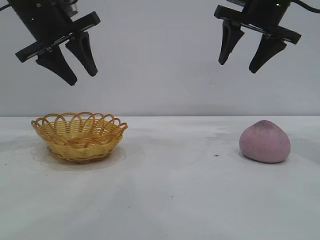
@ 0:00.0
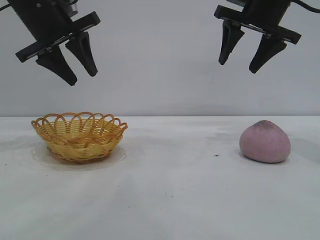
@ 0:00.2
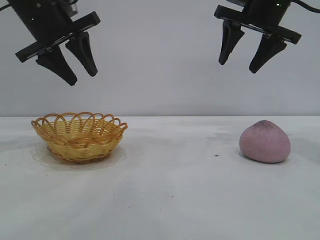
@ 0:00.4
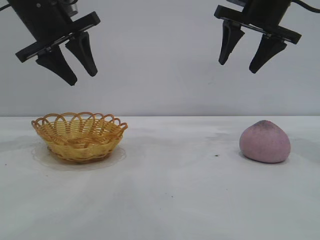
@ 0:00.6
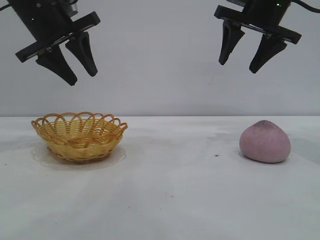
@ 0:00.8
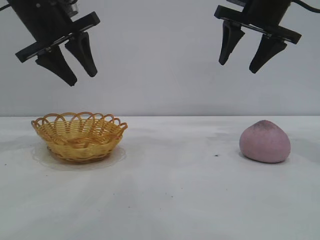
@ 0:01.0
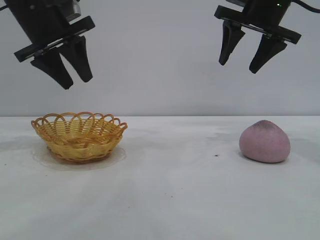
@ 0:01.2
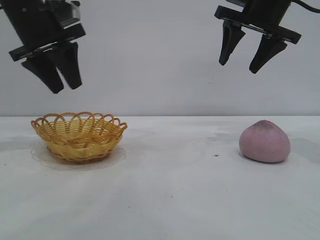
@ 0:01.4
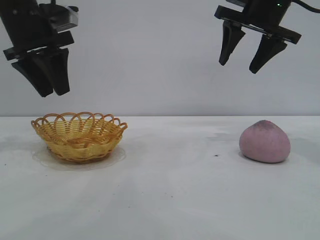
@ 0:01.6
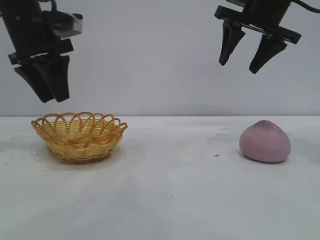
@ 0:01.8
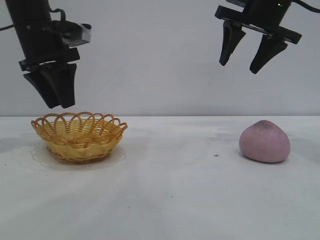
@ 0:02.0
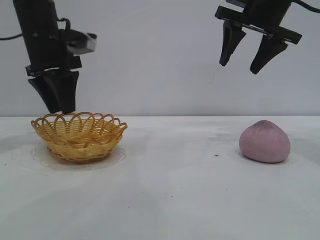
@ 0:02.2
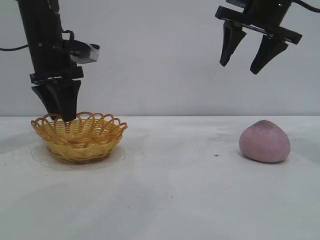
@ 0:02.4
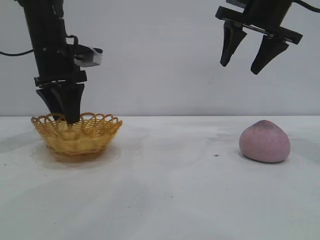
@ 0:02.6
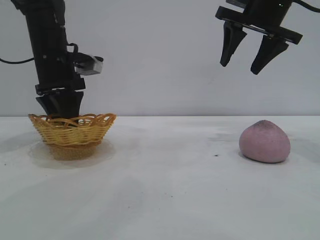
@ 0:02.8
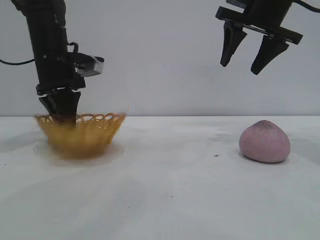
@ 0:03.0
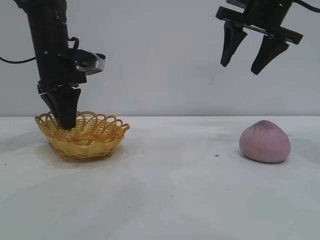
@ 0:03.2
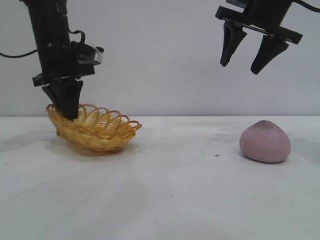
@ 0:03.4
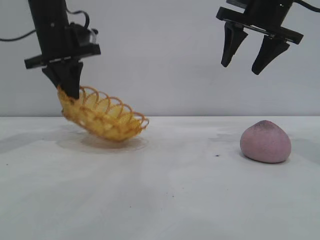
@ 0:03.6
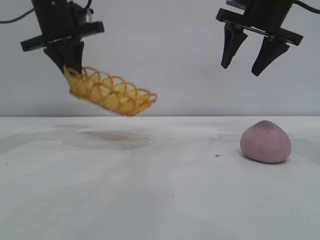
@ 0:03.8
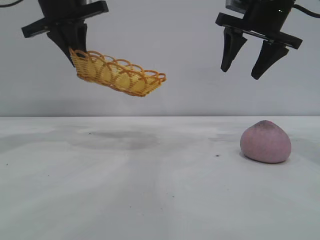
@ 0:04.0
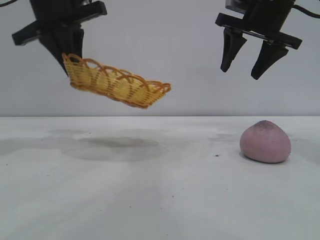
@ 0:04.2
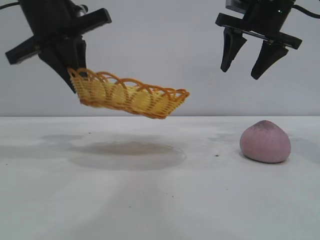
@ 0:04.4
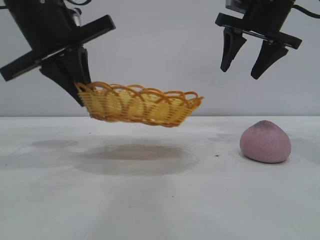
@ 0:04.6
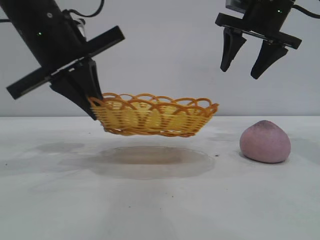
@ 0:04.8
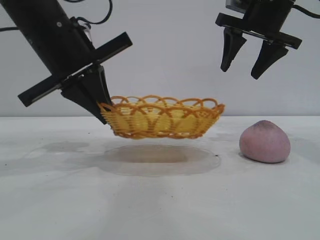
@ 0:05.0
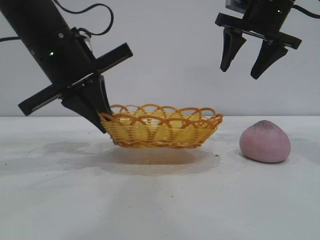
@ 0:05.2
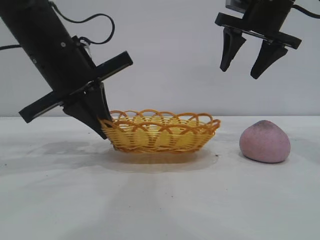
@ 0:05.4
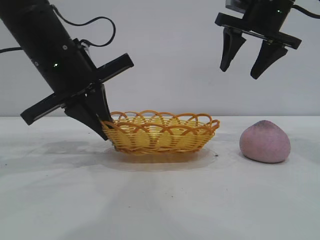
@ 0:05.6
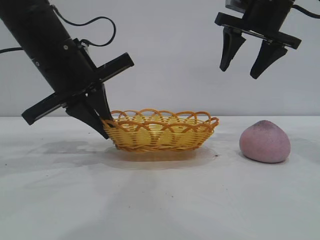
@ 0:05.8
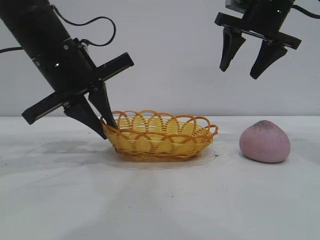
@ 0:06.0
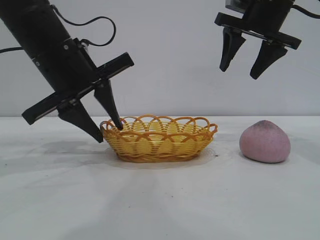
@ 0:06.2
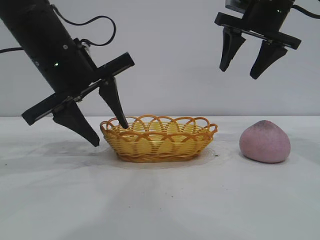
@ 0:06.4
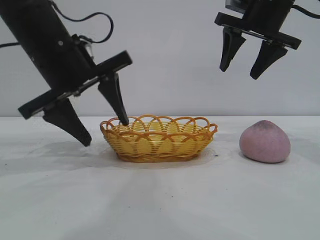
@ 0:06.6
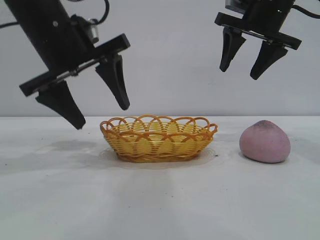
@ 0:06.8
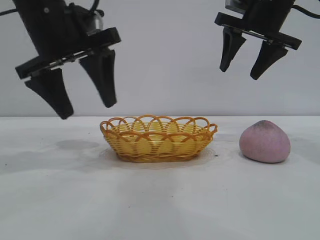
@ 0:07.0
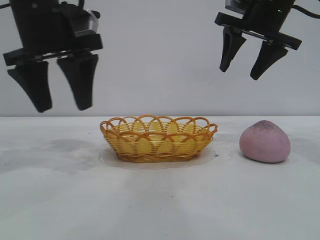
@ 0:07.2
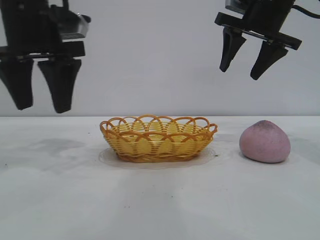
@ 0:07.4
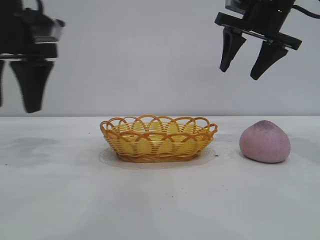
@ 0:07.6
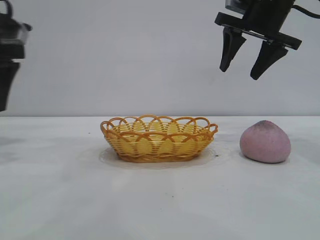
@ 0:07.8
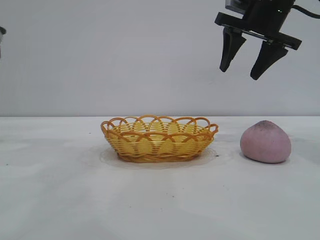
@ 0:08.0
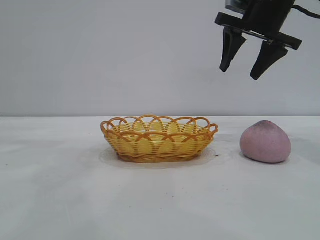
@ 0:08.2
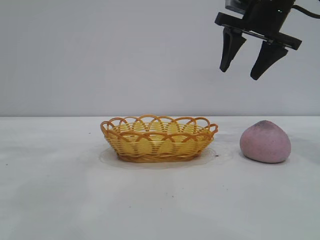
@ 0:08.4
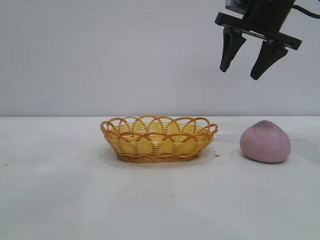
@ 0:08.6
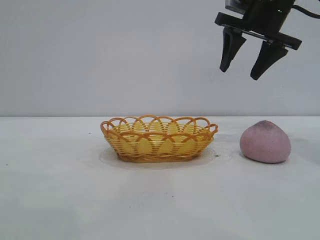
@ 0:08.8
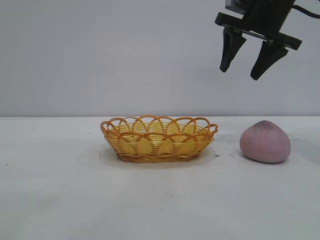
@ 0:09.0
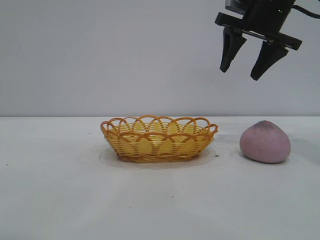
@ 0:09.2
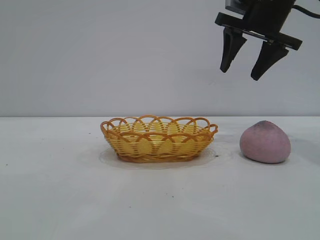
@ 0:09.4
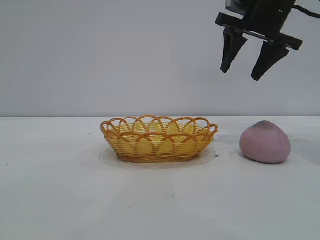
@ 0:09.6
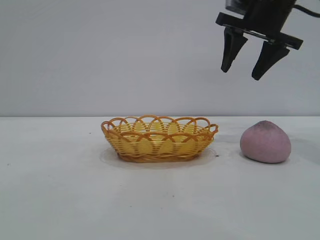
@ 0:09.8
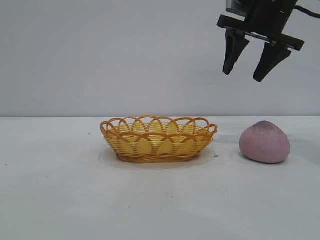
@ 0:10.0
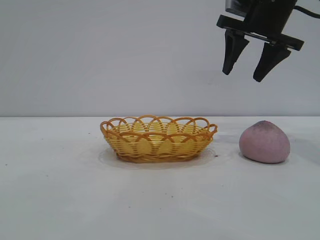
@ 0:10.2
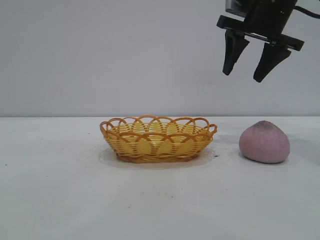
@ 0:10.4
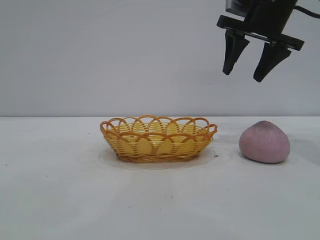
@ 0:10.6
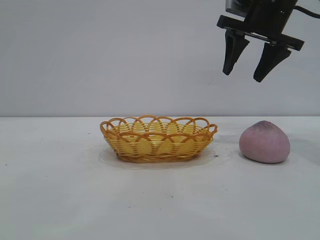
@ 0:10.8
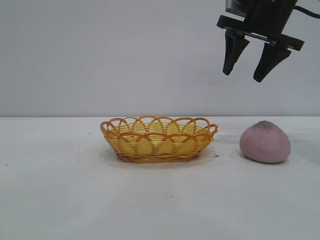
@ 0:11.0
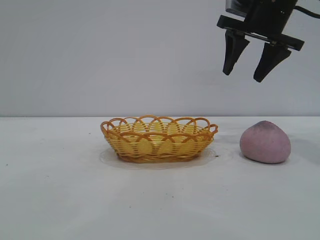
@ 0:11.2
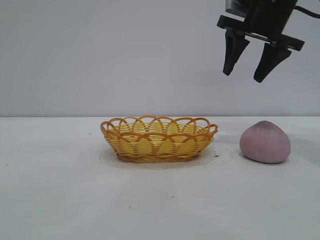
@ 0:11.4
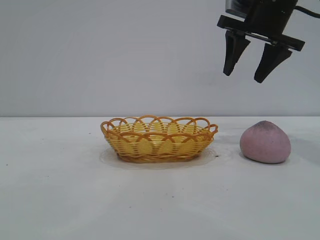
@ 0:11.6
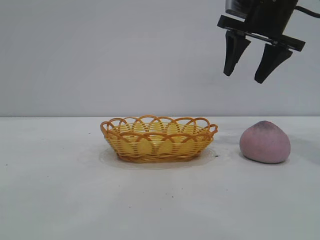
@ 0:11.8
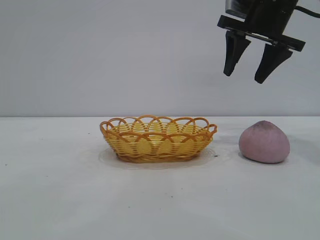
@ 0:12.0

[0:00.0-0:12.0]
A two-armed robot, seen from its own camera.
Task of the whole recording: pick up the peach and put it into the basket.
Step, 0:00.0 to 0:07.2: Move the basket to the center of view.

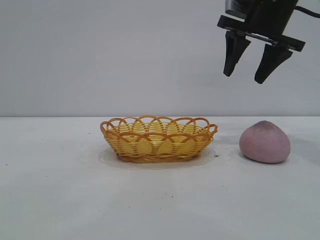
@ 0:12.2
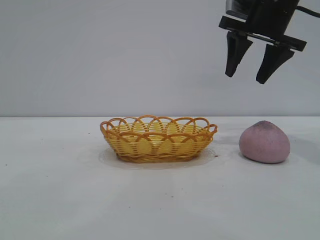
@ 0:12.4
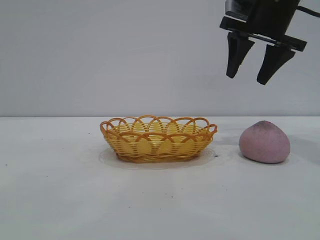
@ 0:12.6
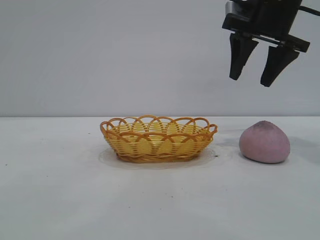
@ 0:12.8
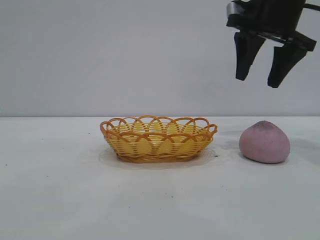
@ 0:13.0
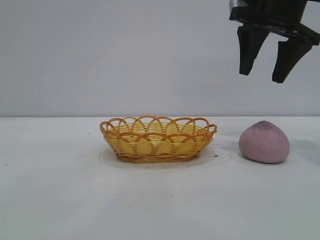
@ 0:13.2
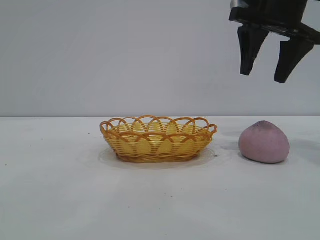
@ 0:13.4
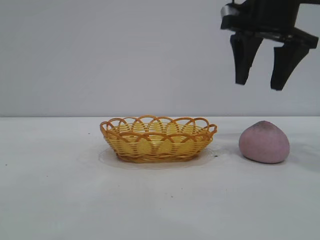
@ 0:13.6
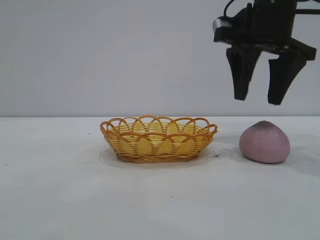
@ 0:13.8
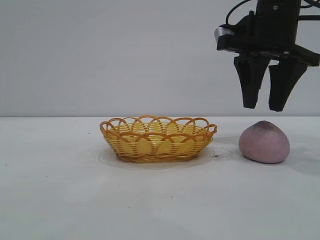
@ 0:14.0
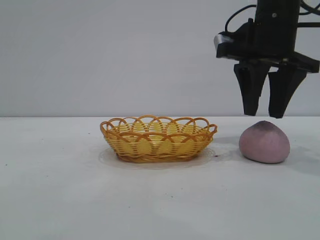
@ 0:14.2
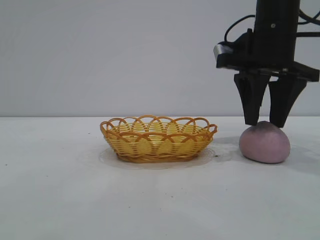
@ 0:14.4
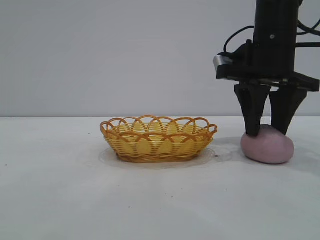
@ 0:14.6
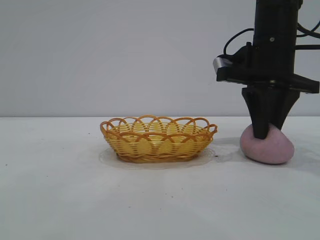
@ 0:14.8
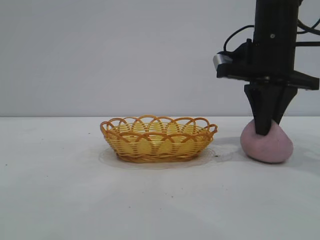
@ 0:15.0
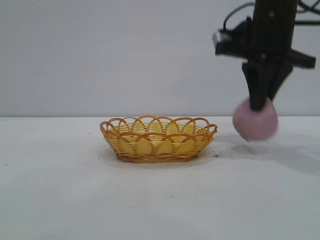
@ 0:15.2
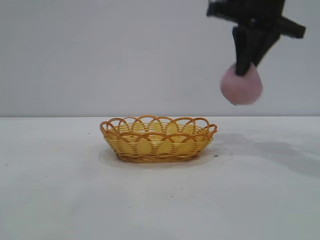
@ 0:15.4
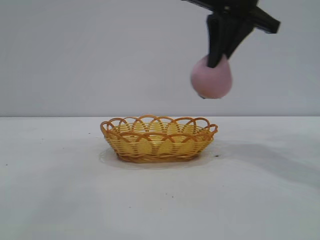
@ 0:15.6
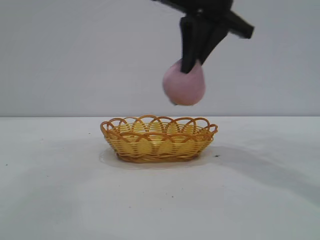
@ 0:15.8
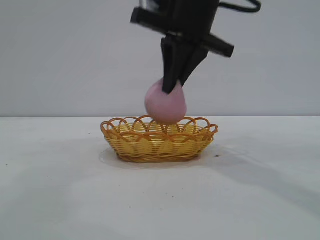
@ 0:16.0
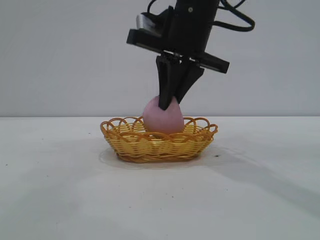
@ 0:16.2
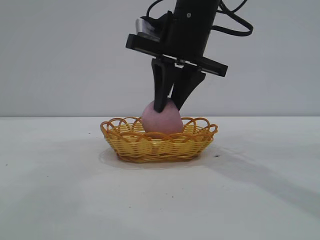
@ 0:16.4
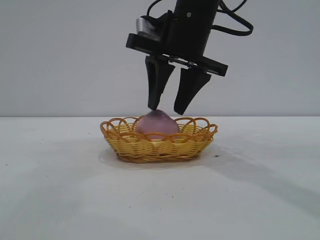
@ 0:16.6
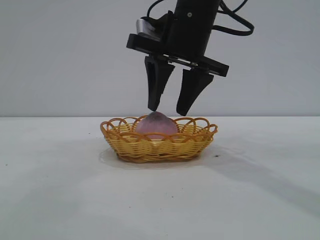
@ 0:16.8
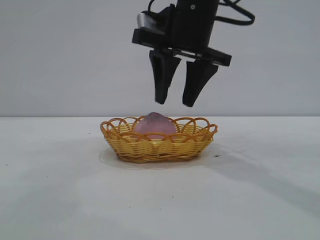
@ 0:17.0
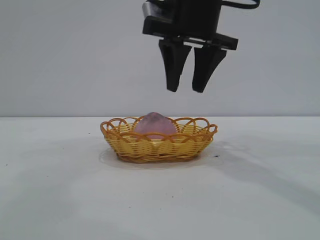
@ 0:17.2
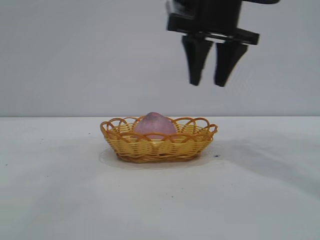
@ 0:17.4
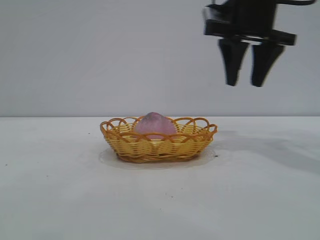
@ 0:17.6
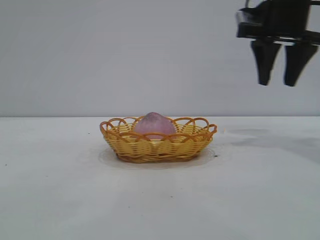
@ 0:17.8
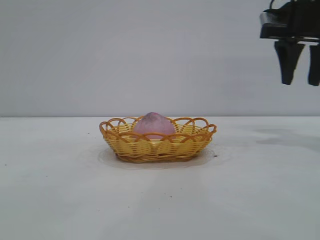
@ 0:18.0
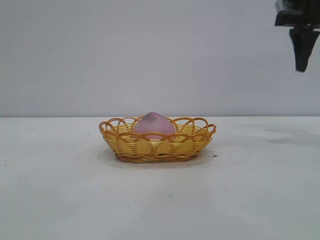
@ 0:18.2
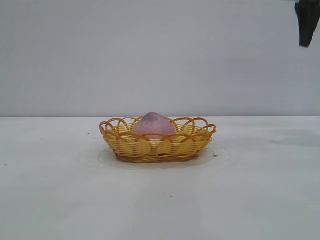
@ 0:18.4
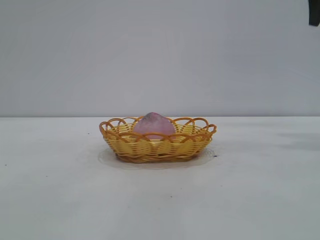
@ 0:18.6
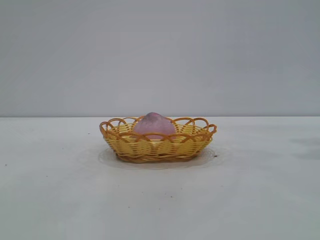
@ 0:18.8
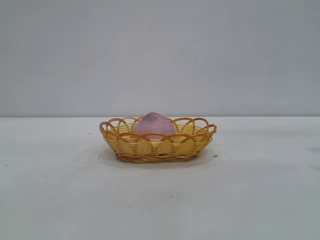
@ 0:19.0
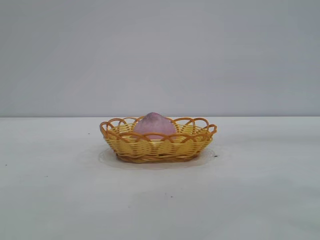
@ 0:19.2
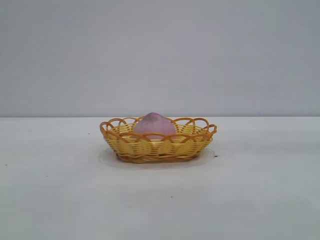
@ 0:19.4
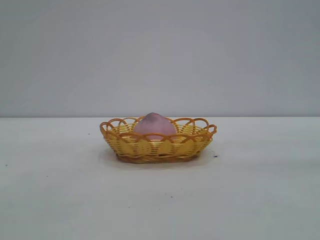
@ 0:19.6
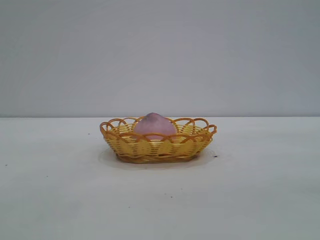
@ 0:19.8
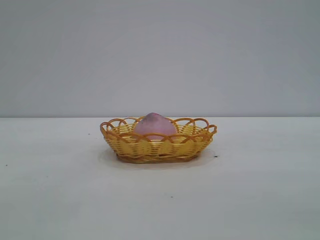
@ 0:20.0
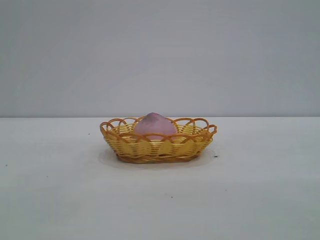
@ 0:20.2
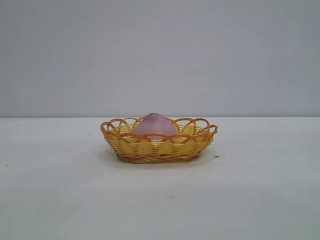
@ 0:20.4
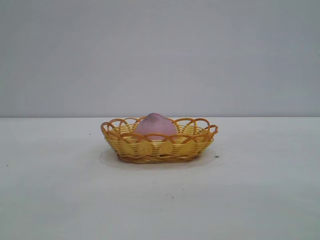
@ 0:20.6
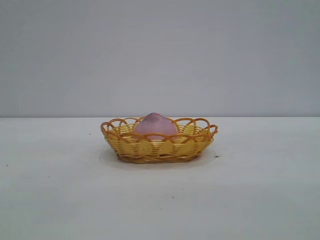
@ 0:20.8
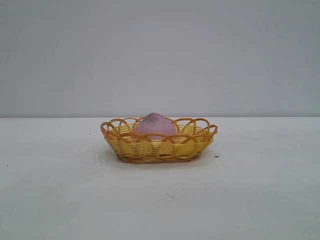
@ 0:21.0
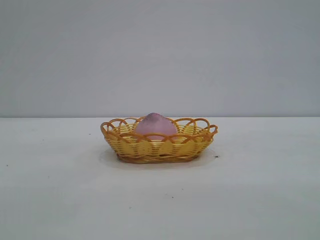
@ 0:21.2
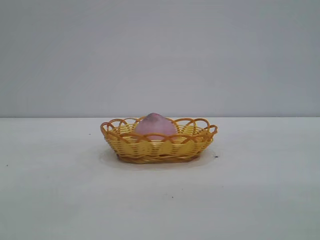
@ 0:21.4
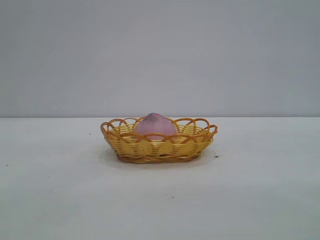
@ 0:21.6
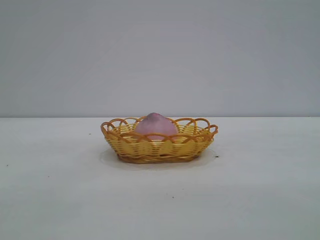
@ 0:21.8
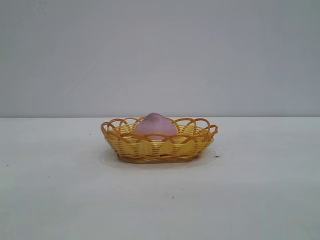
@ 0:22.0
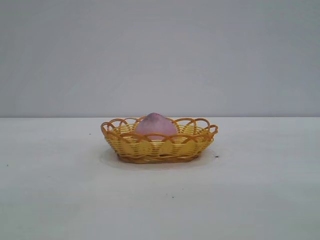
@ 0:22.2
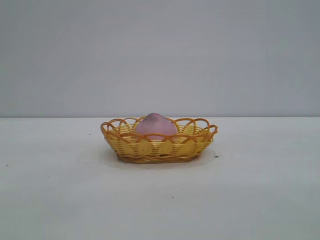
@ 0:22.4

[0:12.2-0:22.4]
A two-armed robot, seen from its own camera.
Task of the whole recording: pick up the peach and put it into the basket.
Step, 0:12.2 to 0:15.2: Pick up the peach.
Step, 0:15.4 to 0:17.4: place the peach into the basket.
